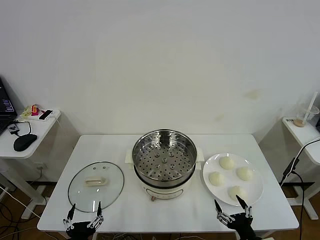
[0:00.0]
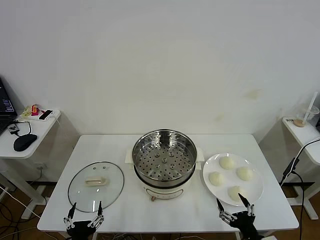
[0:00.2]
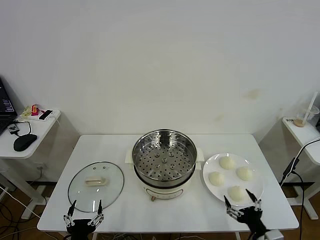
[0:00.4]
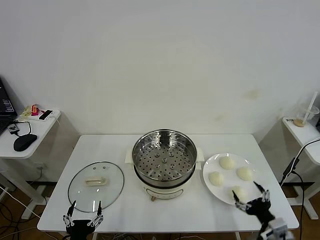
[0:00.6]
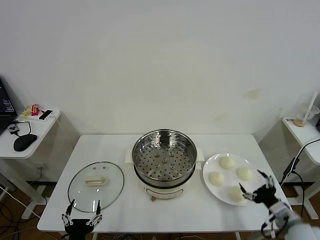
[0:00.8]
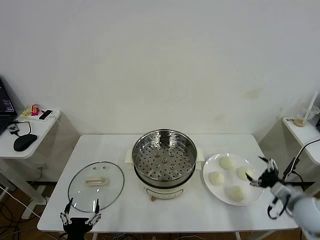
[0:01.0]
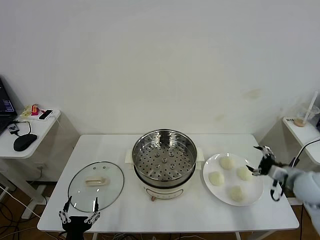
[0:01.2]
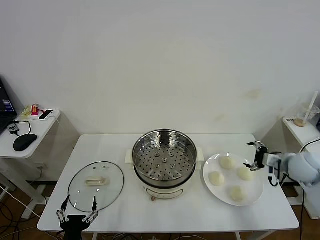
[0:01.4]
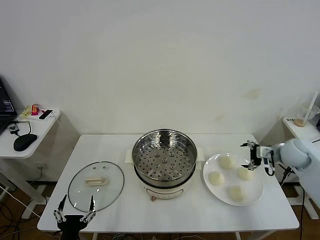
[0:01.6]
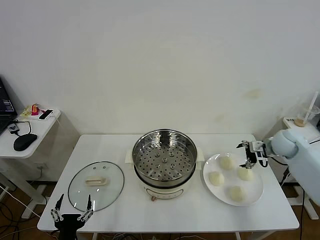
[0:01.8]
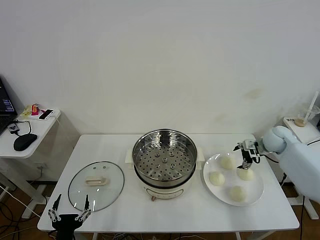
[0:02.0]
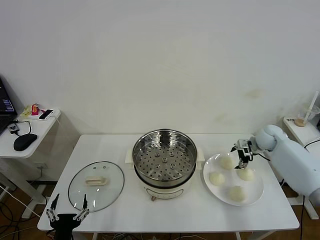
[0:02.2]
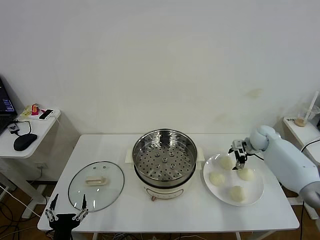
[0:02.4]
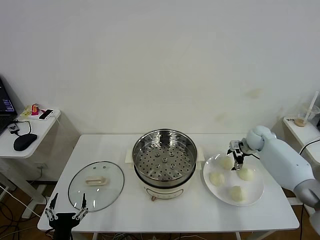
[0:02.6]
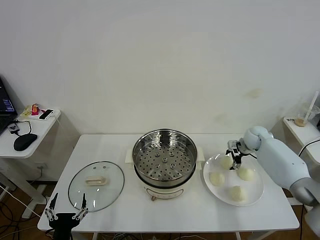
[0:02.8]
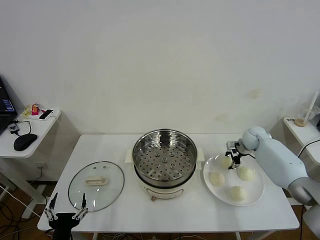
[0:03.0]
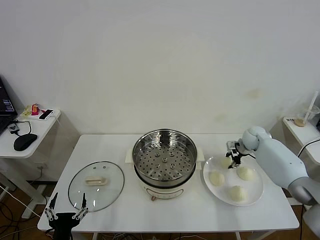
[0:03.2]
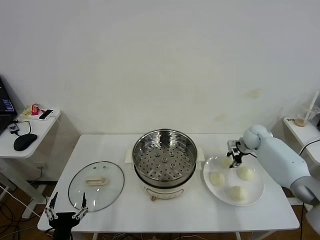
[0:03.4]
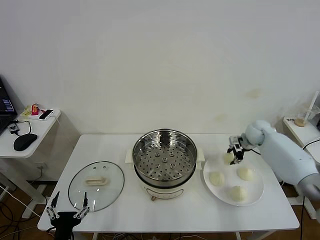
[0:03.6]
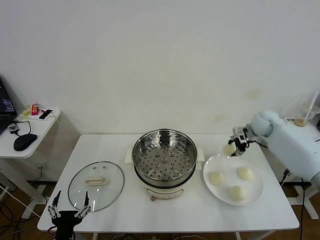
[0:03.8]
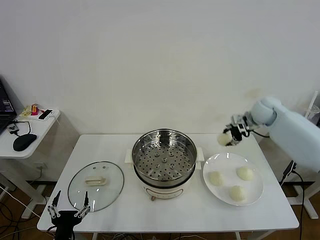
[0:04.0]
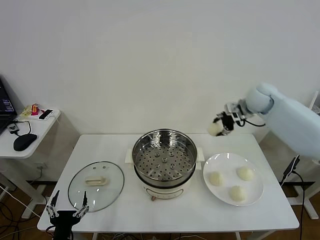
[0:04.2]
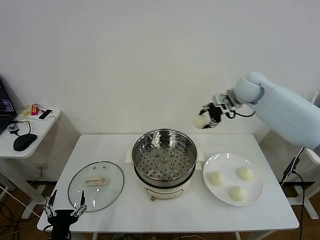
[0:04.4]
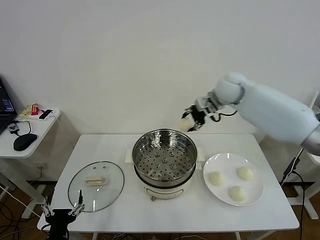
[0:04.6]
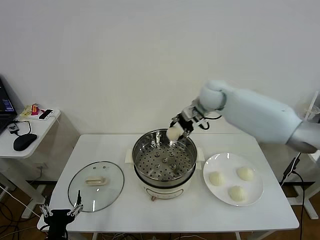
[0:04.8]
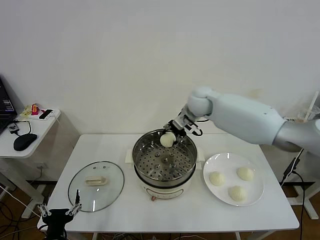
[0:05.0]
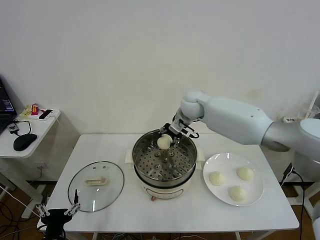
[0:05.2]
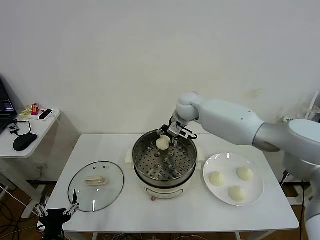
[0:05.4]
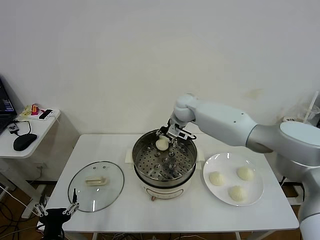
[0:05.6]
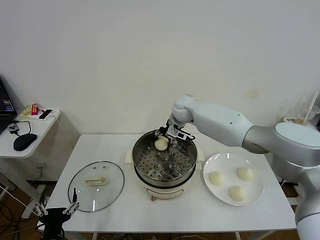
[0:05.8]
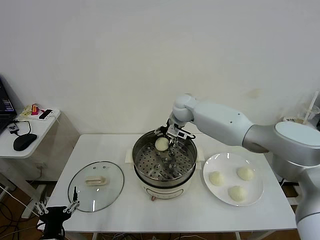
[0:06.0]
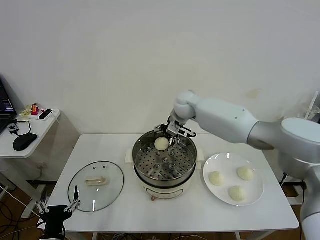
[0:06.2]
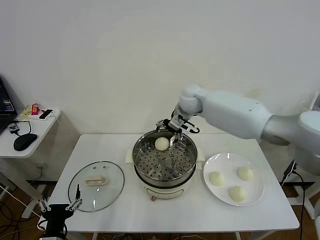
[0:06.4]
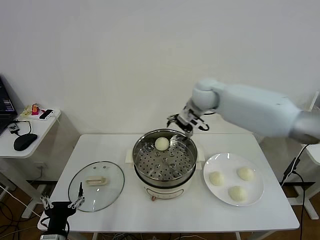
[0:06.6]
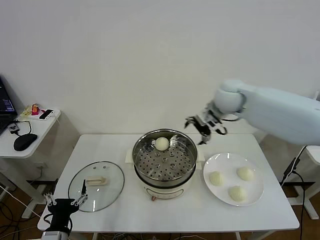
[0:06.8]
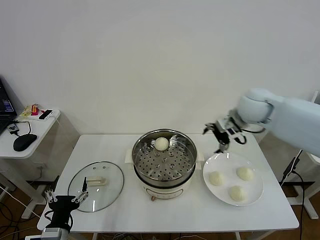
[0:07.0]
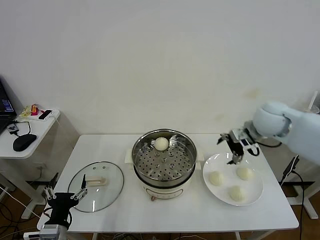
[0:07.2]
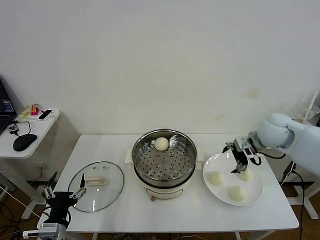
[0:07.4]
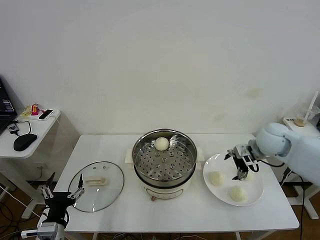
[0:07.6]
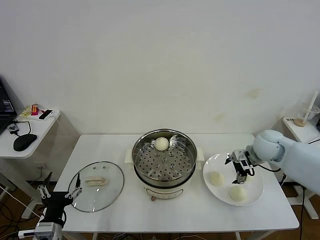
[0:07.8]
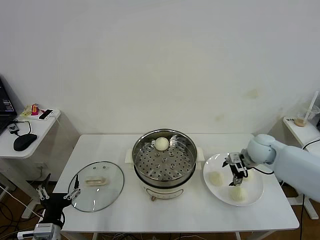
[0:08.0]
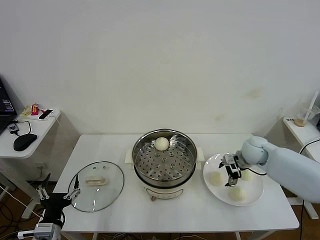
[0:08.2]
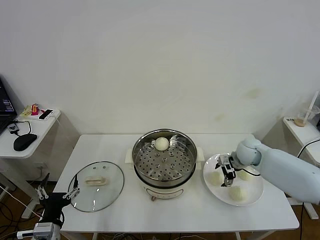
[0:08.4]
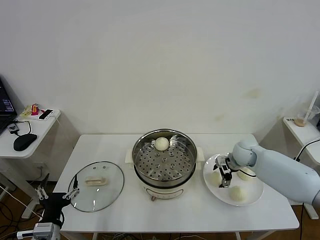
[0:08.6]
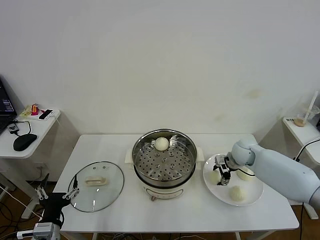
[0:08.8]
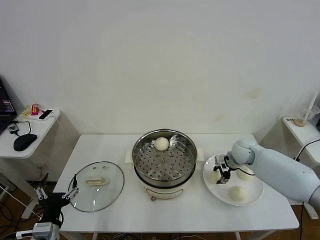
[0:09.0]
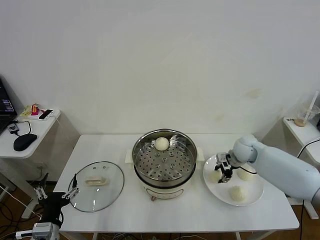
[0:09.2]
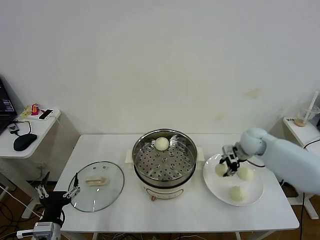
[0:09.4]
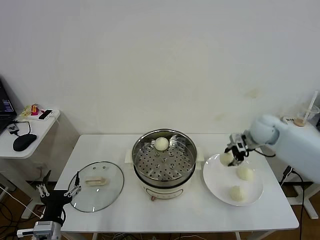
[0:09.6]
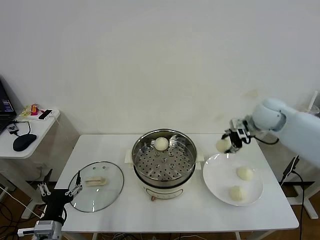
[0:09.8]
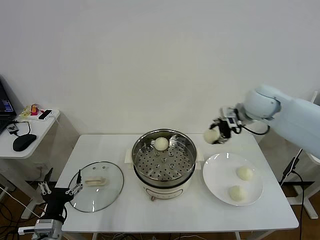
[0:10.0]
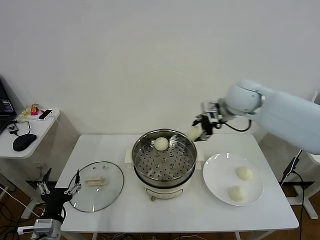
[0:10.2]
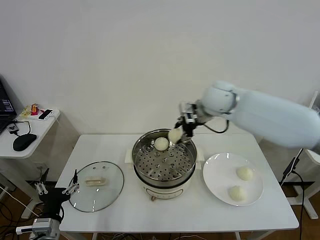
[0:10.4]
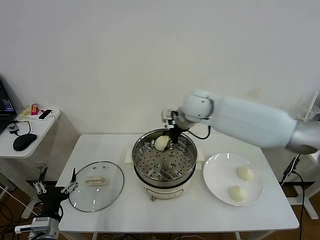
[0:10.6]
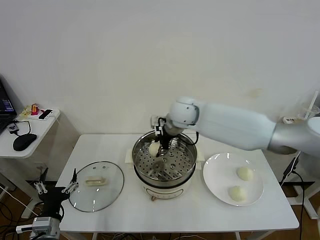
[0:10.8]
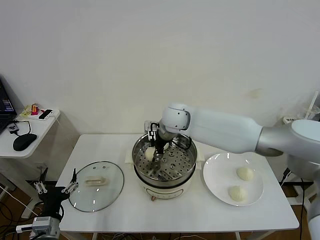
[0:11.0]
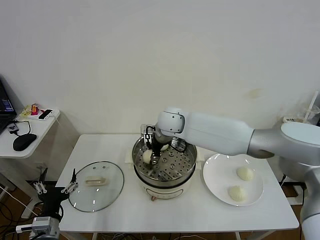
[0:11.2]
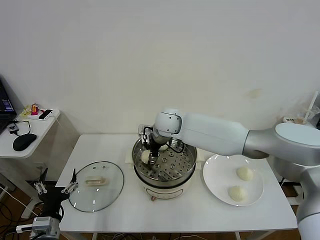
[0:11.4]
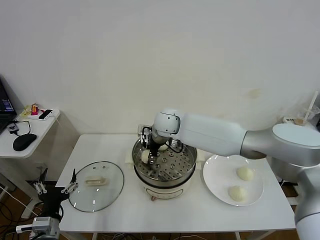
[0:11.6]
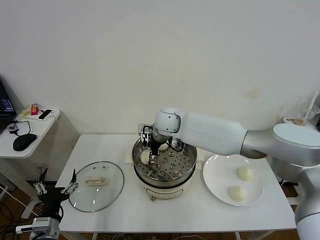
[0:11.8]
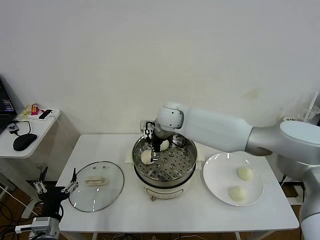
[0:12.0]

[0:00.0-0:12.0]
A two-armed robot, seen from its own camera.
Task of the whole recording: take steamed baozi put them in steamer then cover it.
Step, 0.0 to 3.2 s: Grasp the baozi in the plate with right gripper.
Step, 3.4 to 6.2 s: Place the baozi on the steamer with right gripper.
Step, 6.4 to 9.0 s: Grasp the baozi in the plate with right gripper.
Step, 9.2 to 12.0 s: Place the baozi on the steamer with right gripper.
1.6 to 3.0 s: The right gripper travels forward, downward and to the left by some 15 cm, and closes.
3.0 to 4.4 s: The right gripper shifts approximately 30 cm upward and to the left.
4.4 to 6.0 s: The right gripper goes roughly 20 cm to the left and downward, and opens up.
6.0 to 7.6 s: The right gripper shifts roughly 30 cm to the right and backward.
7.6 to 9.0 s: The right gripper moves downward and forward, about 10 cm, and closes up.
9.0 to 10.4 s: The right gripper is displaced upward and to the left by roughly 30 cm.
10.4 to 12.0 s: The right gripper shifts about 10 cm to the left and downward, and opens up.

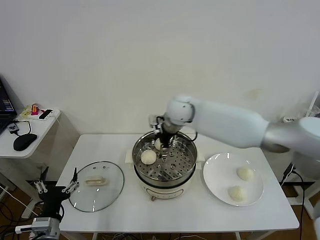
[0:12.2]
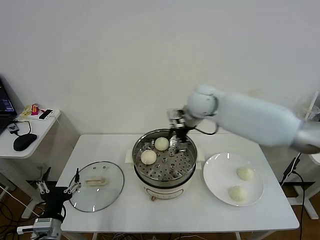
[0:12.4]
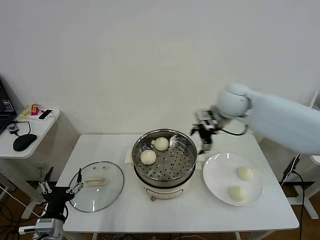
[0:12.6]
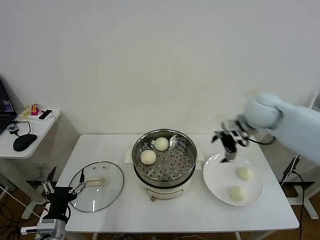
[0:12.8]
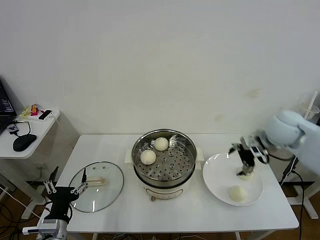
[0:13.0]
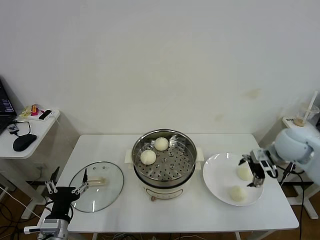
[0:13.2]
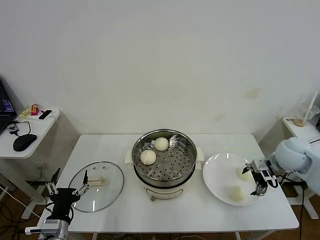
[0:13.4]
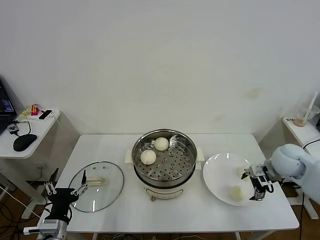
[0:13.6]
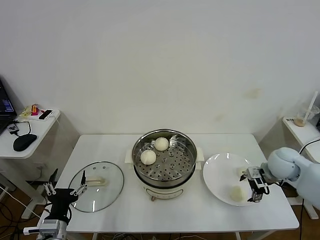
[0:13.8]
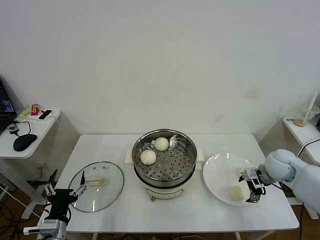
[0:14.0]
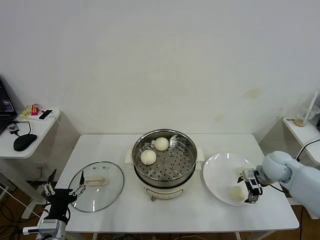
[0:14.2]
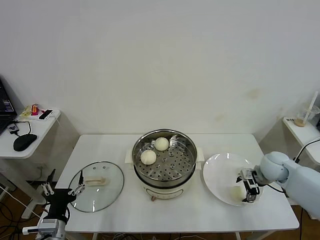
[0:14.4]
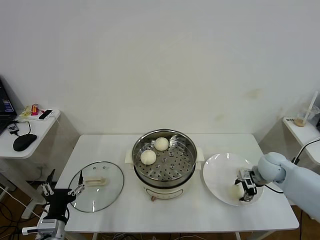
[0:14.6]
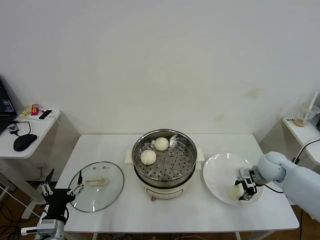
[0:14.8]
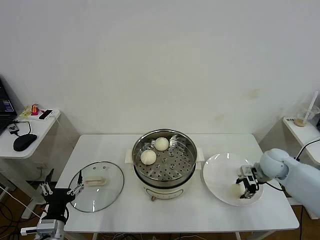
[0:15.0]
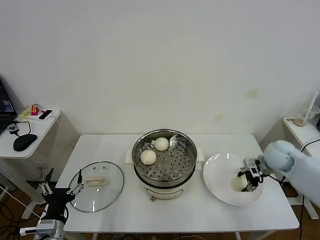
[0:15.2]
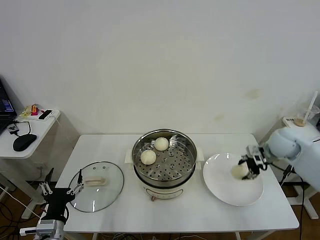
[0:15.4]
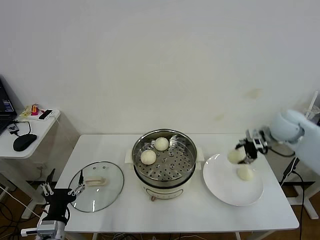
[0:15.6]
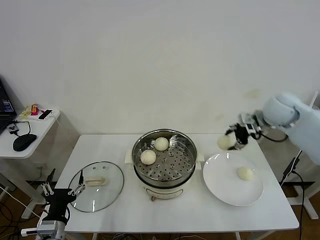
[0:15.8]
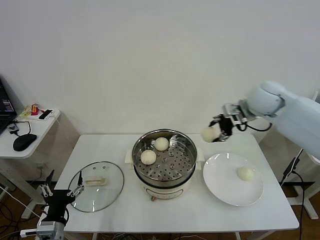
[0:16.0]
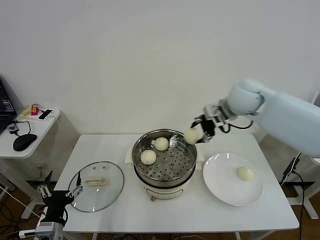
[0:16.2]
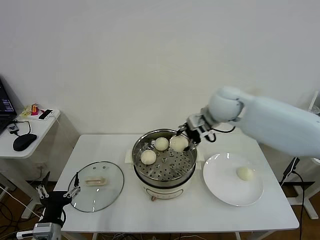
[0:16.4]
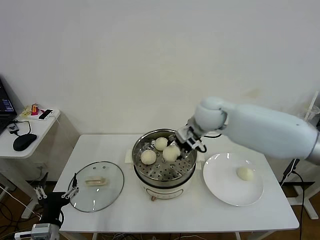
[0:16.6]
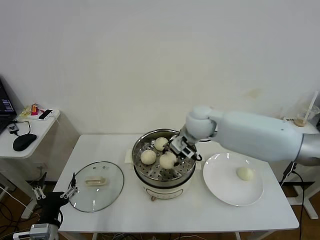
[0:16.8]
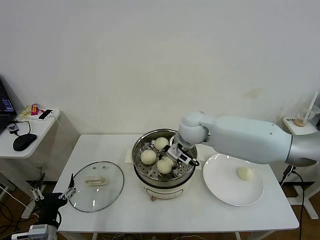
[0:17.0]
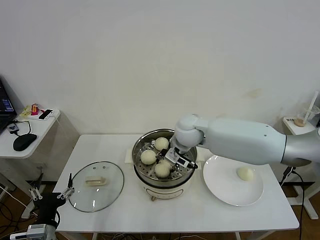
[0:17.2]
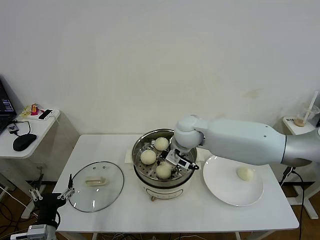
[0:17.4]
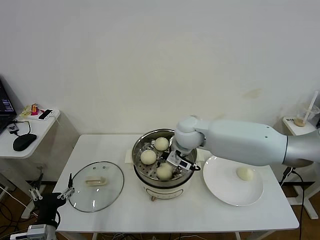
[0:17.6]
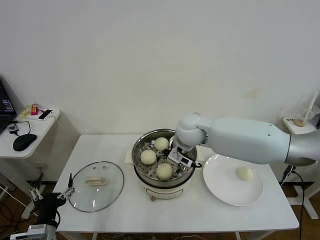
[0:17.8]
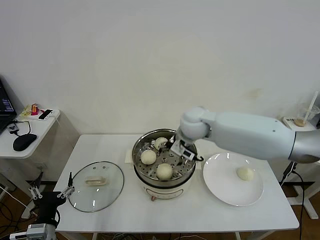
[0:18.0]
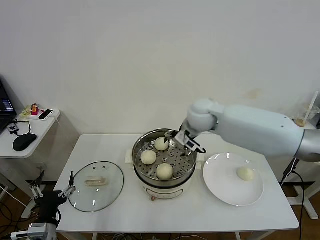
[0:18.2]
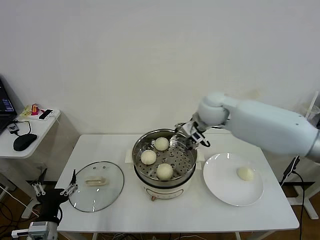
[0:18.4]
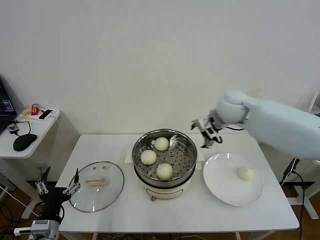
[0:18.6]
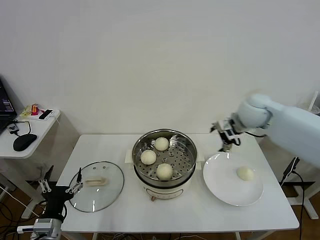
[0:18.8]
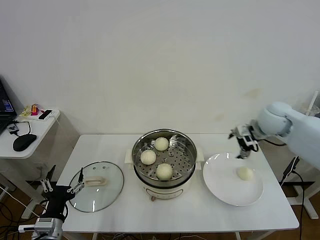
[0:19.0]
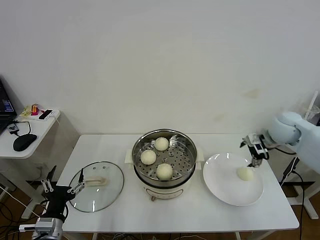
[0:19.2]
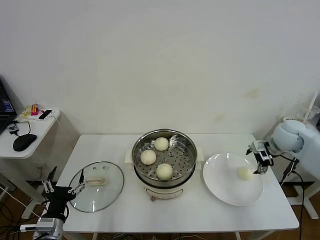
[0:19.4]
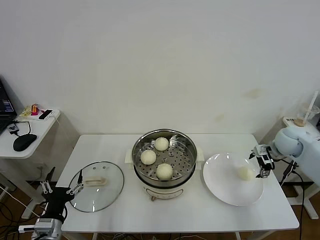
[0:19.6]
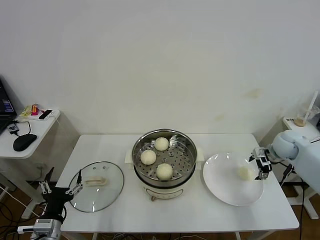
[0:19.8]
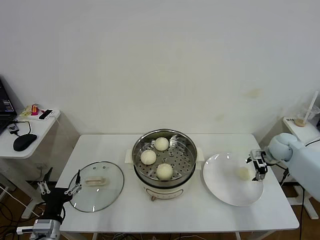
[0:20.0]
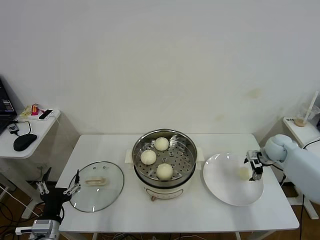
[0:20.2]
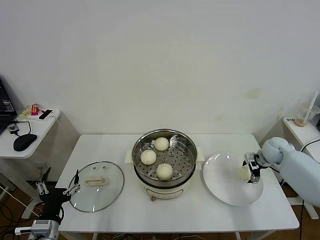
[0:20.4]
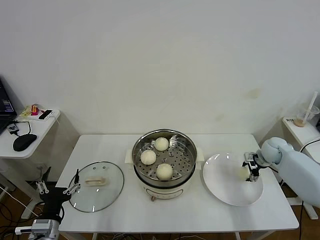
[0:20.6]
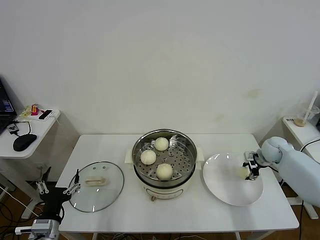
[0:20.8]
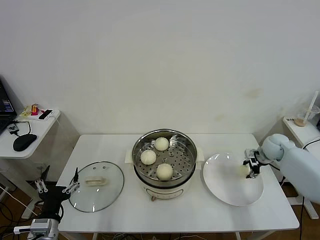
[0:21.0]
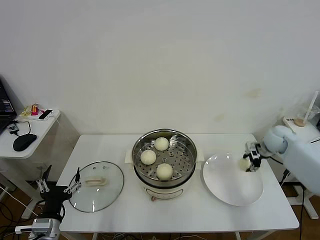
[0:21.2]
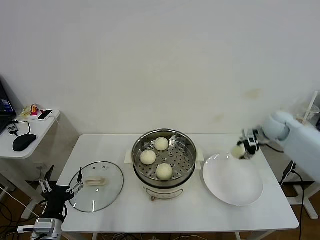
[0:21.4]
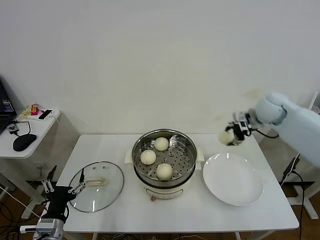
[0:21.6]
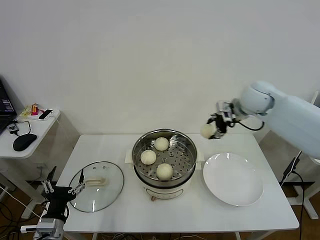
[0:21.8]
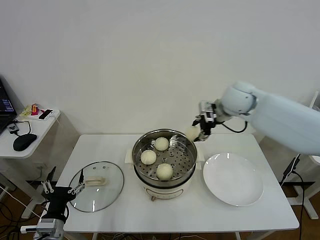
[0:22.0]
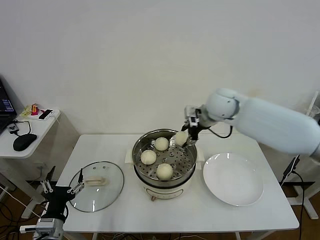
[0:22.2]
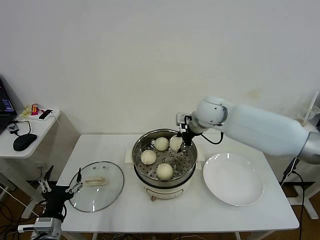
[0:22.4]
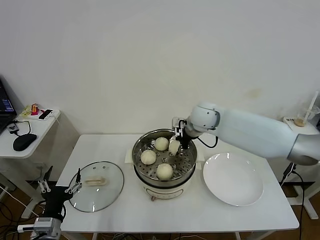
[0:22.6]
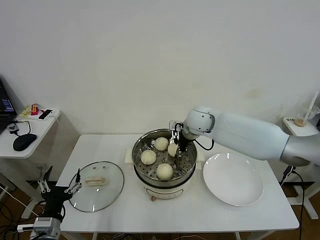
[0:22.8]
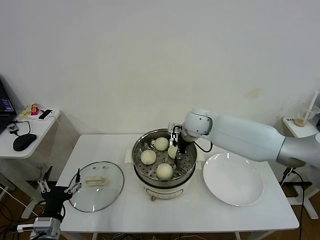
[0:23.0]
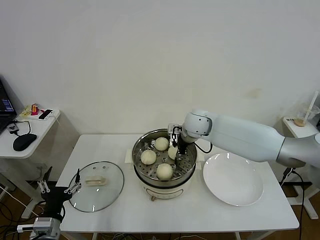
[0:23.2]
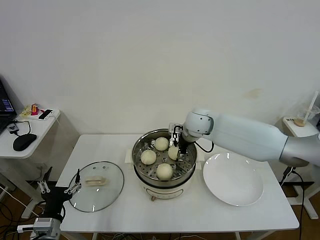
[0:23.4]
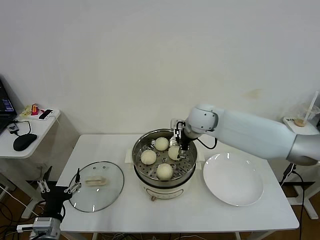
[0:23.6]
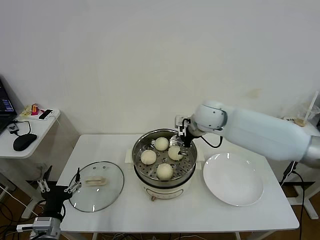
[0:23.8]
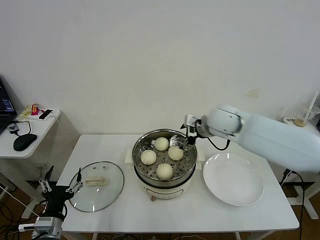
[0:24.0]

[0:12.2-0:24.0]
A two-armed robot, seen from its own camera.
Task of the whole recording: take steamed baozi put them in steamer then cover it.
Step, 12.2 to 14.8 s: Grasp the baozi in the plate with right gripper.
Step, 15.0 to 18.0 s: Place the baozi on the steamer with right gripper.
Step, 18.2 to 20.8 s: Grasp the baozi in the plate with right gripper.
Step, 21.0 to 23.6 s: Place the baozi on the steamer with right gripper.
12.2 to 13.6 s: The right gripper goes roughly 35 cm to the right and backward.
13.6 to 15.2 s: The right gripper closes up.
15.2 to 16.6 s: The right gripper shifts about 30 cm to the left and upward.
16.6 to 18.2 s: The right gripper opens its fingers.
18.2 to 19.6 s: The right gripper heads to the right, covering roughly 30 cm.
19.6 to 21.0 s: The right gripper travels downward by roughly 5 cm, and closes up.
21.0 to 22.6 s: The right gripper is displaced to the left and upward by roughly 35 cm.
22.6 to 24.0 s: The right gripper ends up approximately 5 cm from where it was, and opens.
